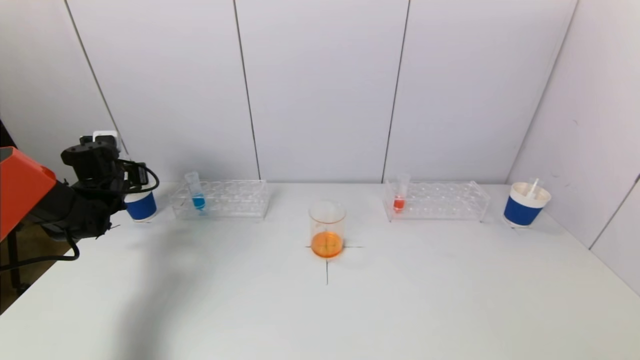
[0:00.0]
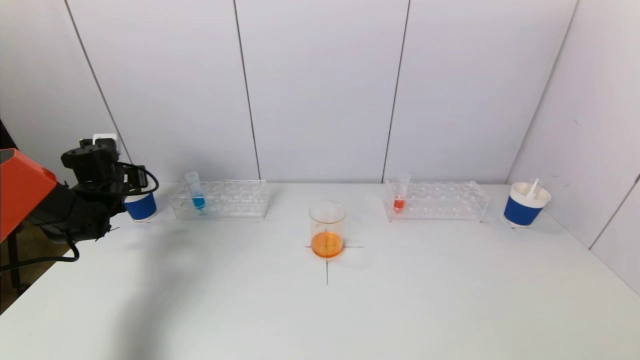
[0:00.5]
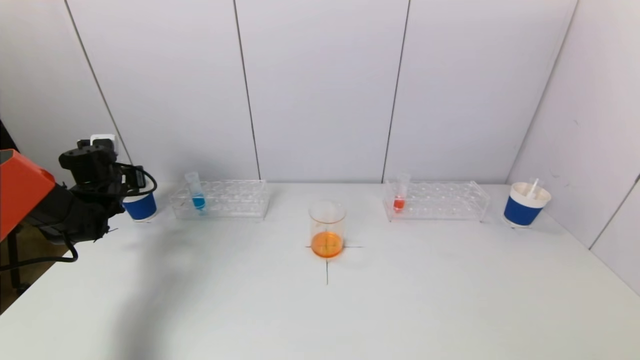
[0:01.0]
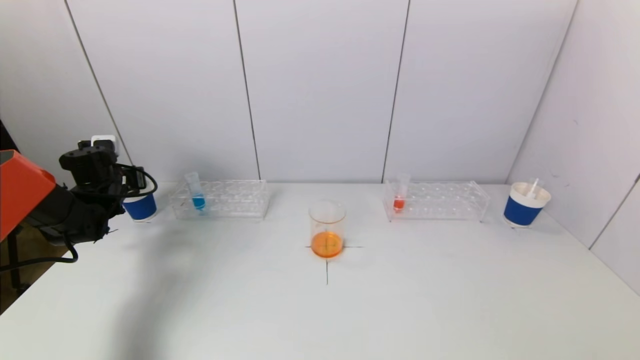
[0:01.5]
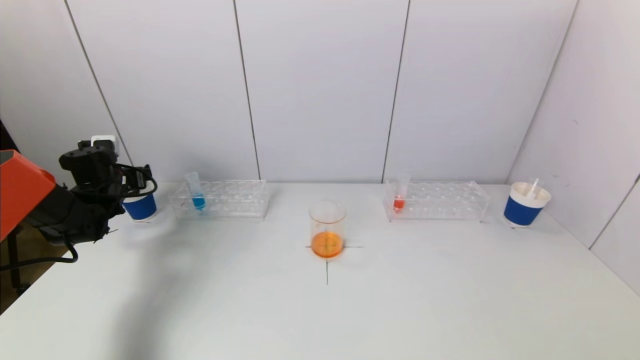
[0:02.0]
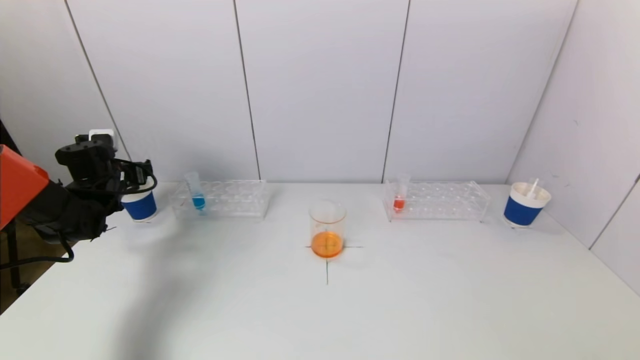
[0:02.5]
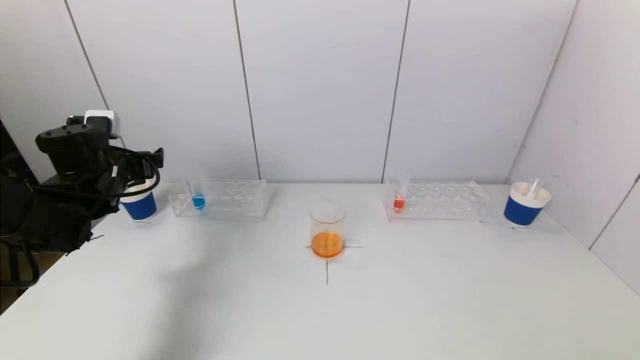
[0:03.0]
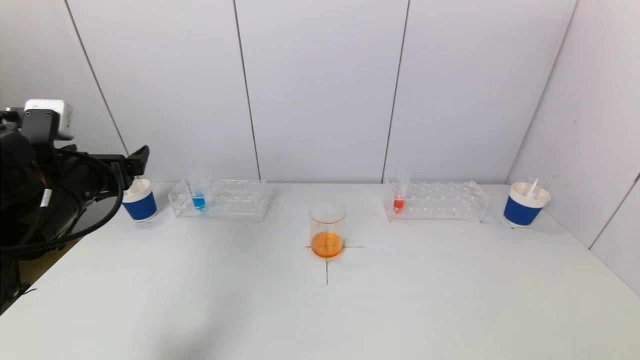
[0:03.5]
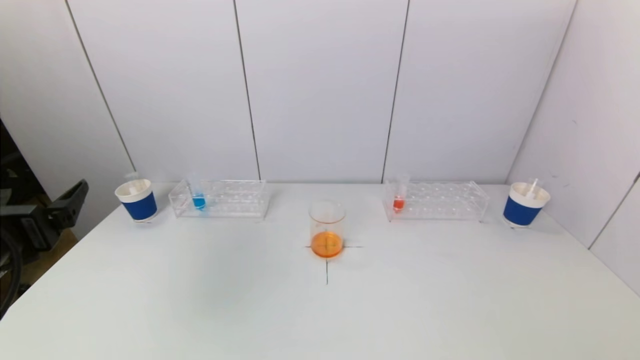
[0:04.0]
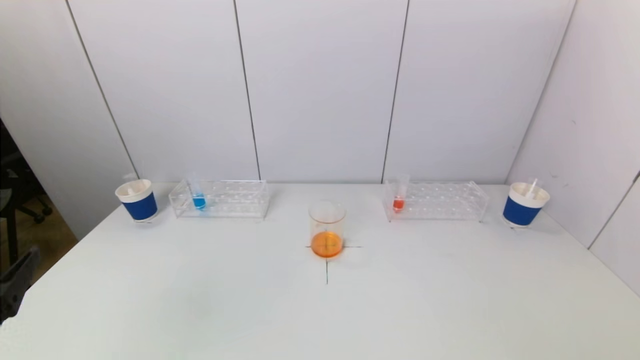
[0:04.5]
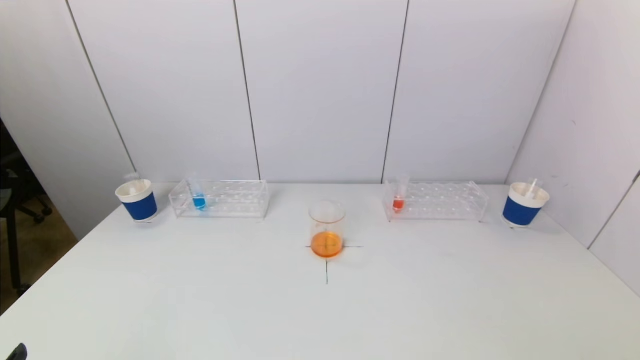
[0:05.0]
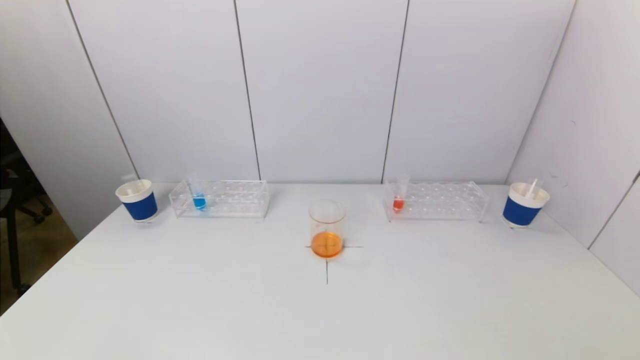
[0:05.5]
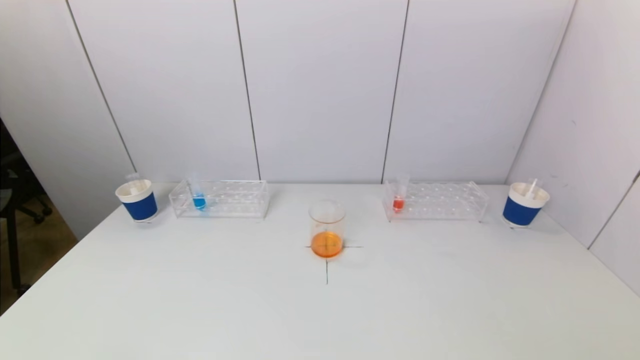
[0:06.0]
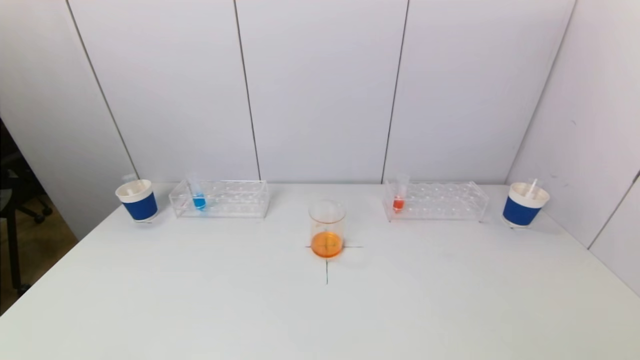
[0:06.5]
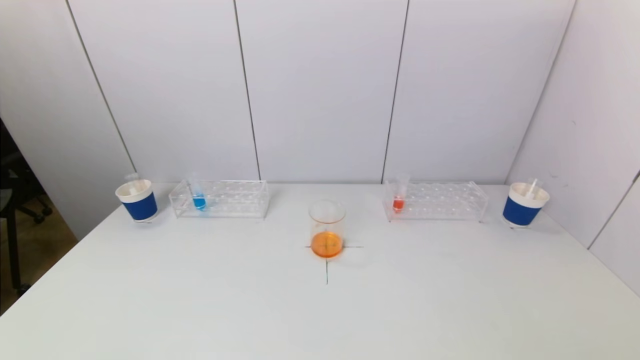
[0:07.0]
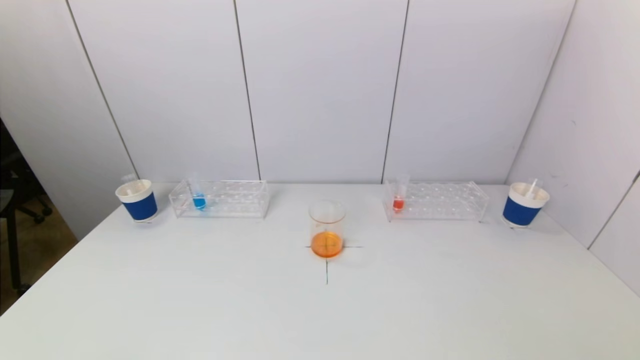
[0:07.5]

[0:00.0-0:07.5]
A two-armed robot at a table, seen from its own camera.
Task of the whole recording: pick up a test tube with pigment on left test tube rack and a test tube with pigment on right test tube rack by grippers and pour them into the beaker.
0:00.0 to 0:02.0: The left gripper opens.
0:02.0 to 0:04.0: The left gripper moves backward, approximately 30 cm.
0:04.0 to 0:05.5: The left gripper is displaced backward and downward by approximately 20 cm.
